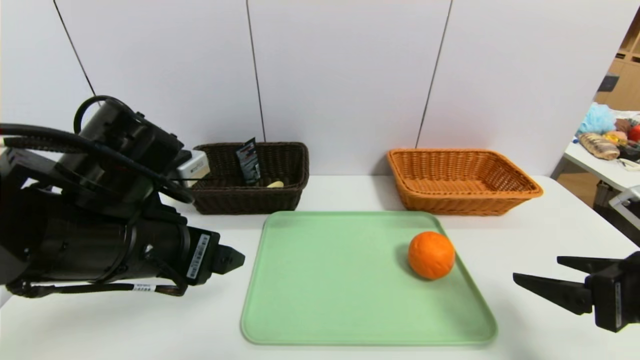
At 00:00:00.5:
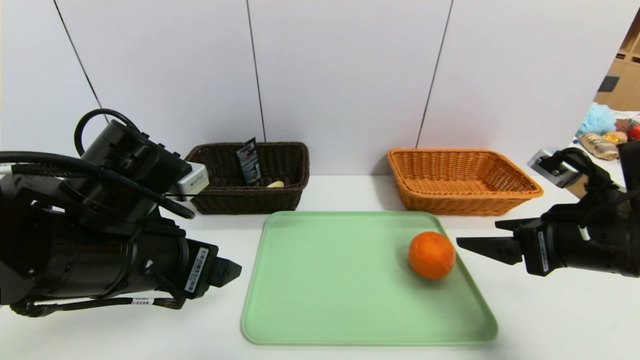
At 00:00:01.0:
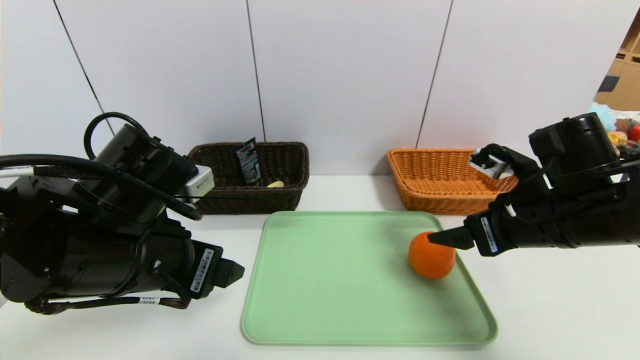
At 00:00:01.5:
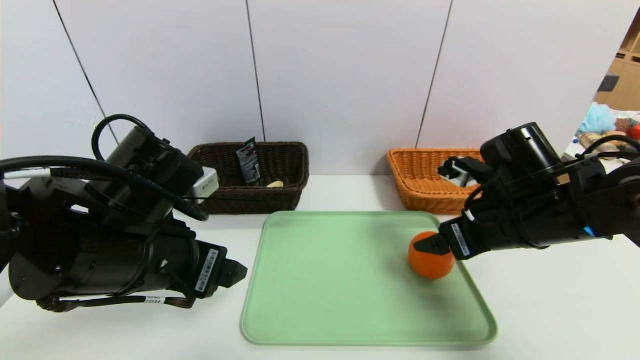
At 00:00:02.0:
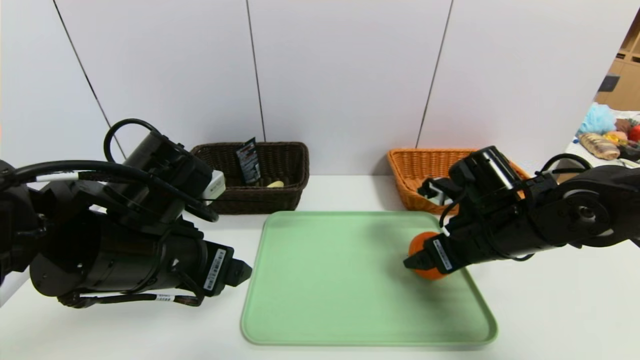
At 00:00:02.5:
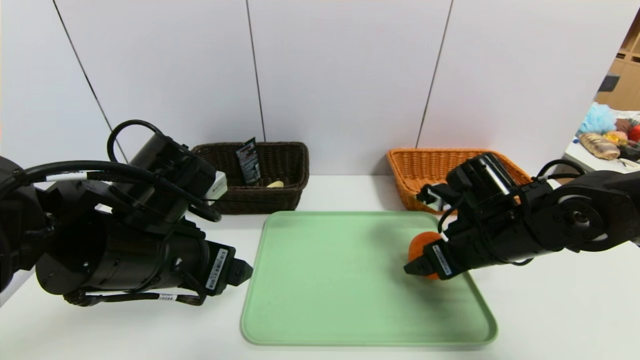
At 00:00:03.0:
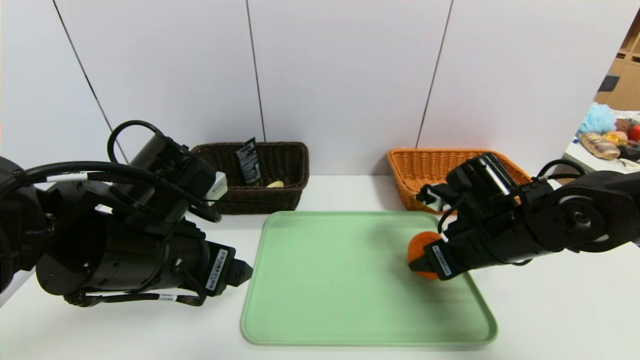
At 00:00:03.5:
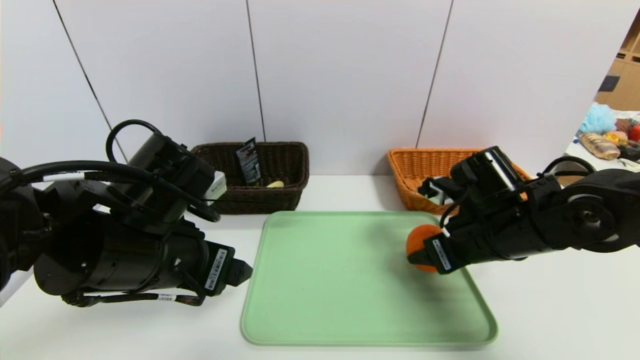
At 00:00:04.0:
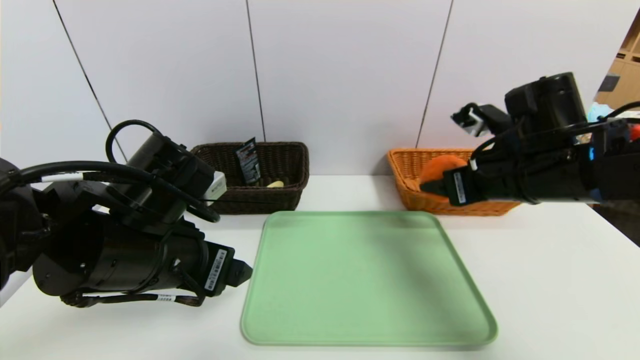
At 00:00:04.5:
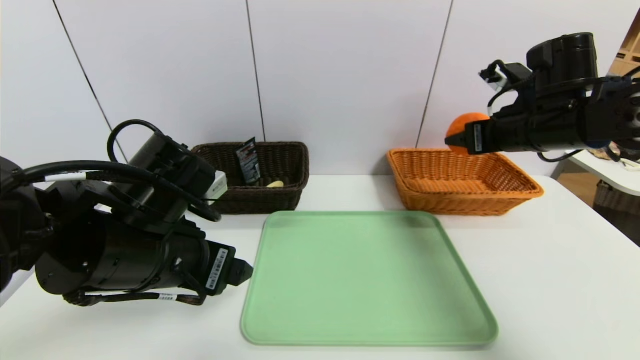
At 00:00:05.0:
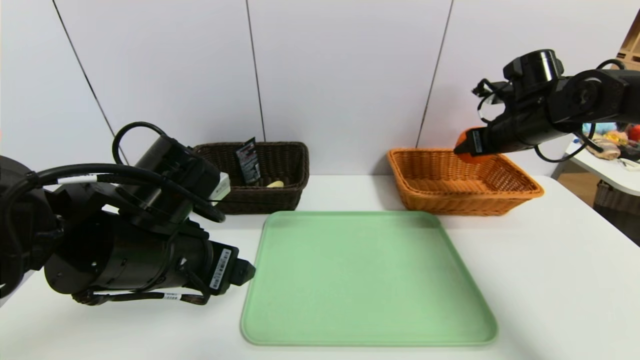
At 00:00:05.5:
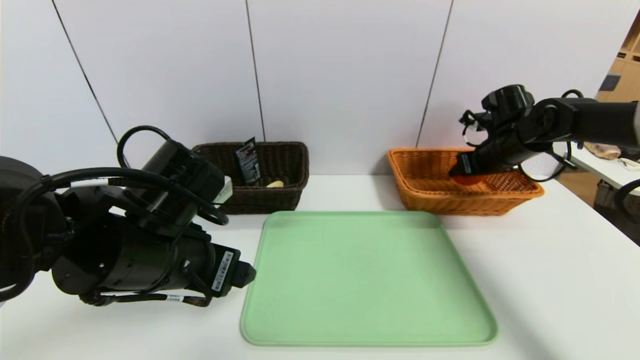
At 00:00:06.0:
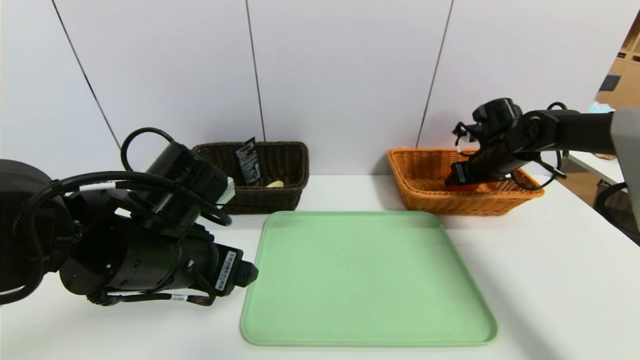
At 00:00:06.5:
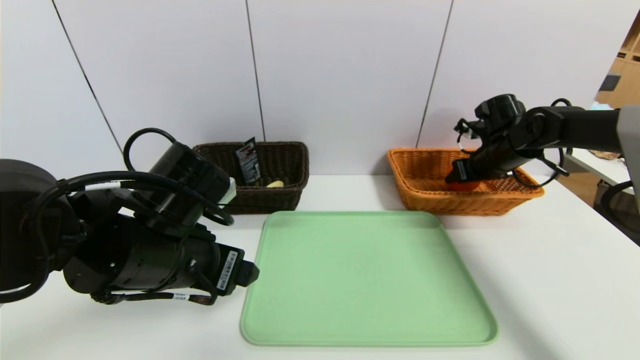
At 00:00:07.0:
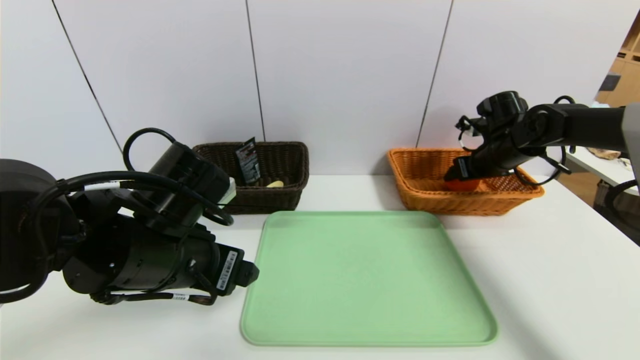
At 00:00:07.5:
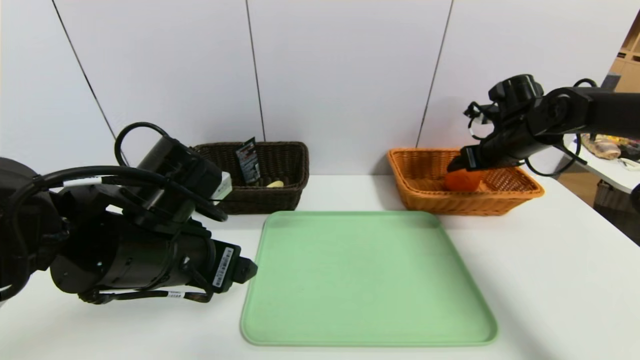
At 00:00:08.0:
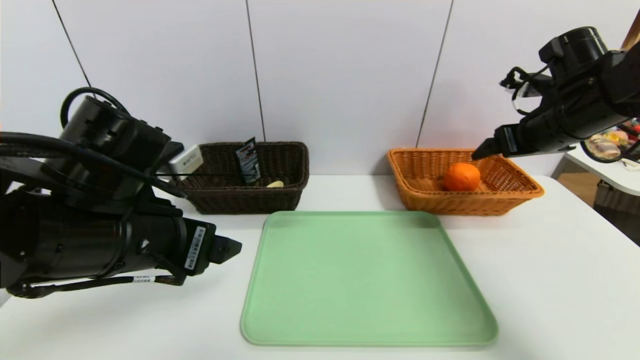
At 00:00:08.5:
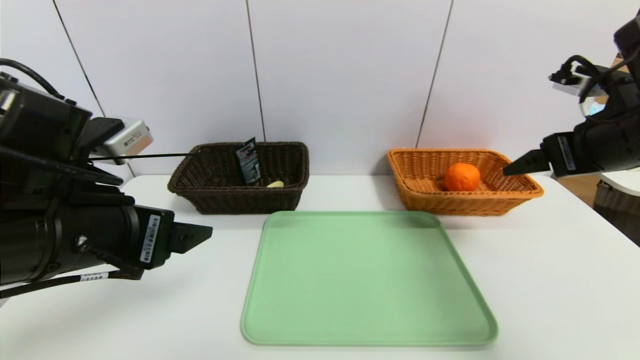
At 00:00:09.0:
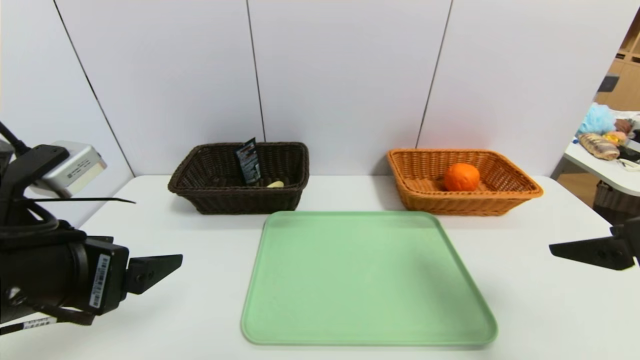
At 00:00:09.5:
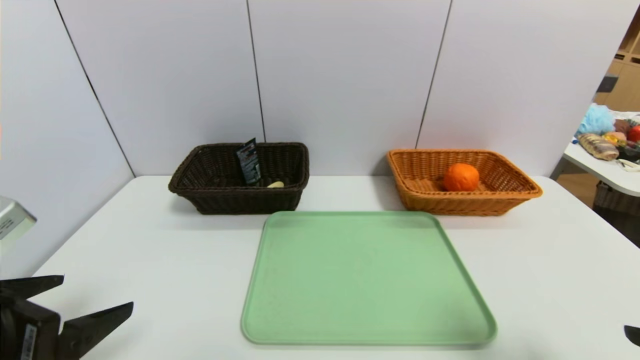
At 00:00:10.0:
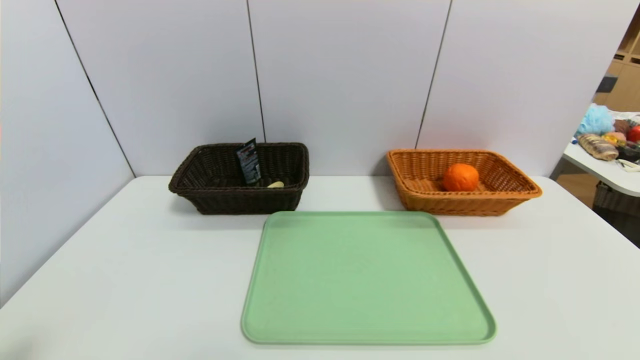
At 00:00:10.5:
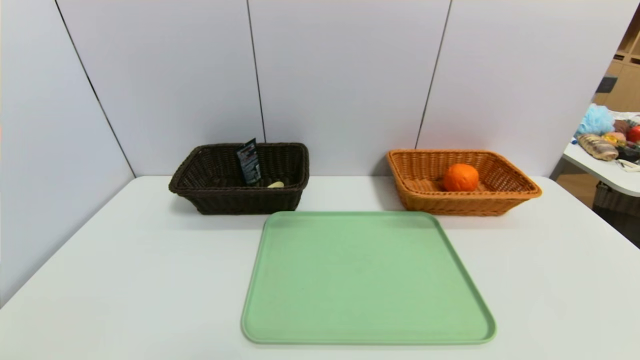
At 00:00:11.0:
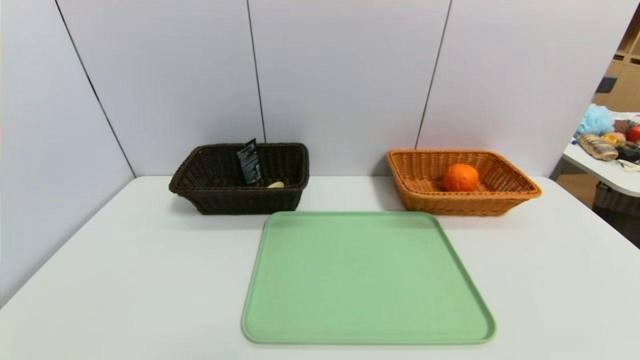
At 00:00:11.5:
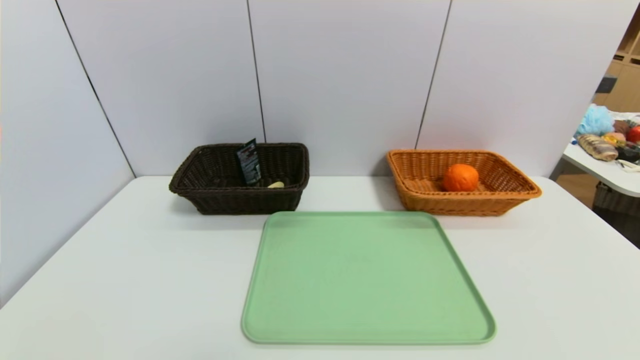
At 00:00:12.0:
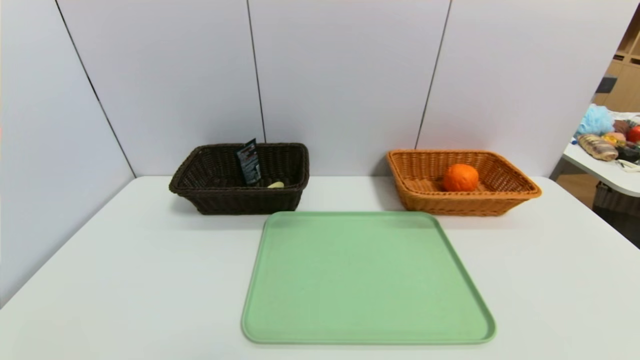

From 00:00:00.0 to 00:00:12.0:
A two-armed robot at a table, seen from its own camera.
Task of the whole recording: place the food in the right basket with the right gripper, and place the non food items in the left basket with the left gripper.
From 00:00:00.0 to 00:00:02.0: The right gripper shifts about 15 cm forward and to the left.
From 00:00:02.0 to 00:00:04.0: The right gripper travels upward by some 10 cm, and closes its fingers.
From 00:00:04.0 to 00:00:06.0: The right gripper heads forward, to the right and downward, covering roughly 20 cm.
From 00:00:06.0 to 00:00:08.0: The right gripper travels upward and backward by some 15 cm, and opens up.
From 00:00:08.0 to 00:00:10.0: The right gripper travels backward by approximately 35 cm. Meanwhile the left gripper shifts approximately 20 cm backward and to the left.

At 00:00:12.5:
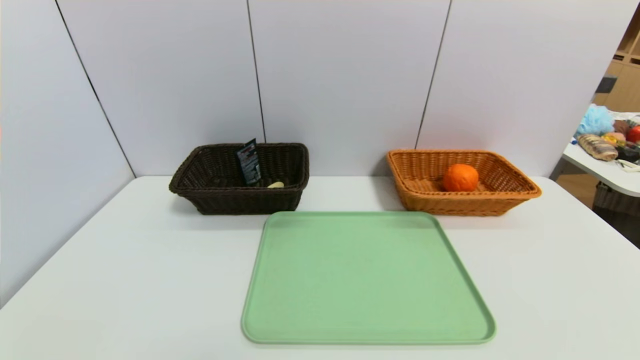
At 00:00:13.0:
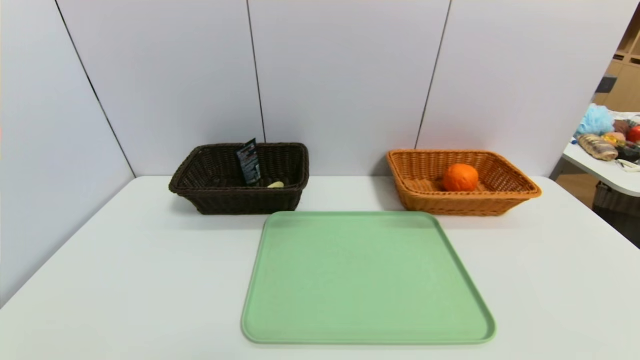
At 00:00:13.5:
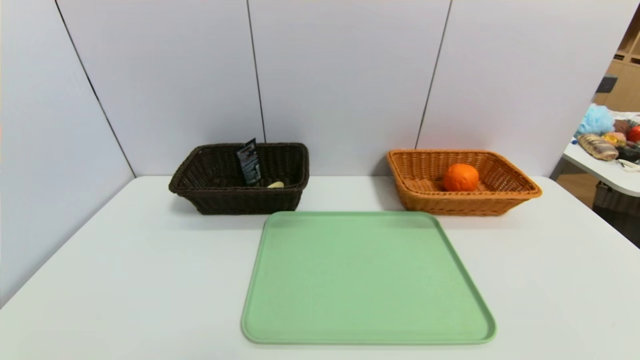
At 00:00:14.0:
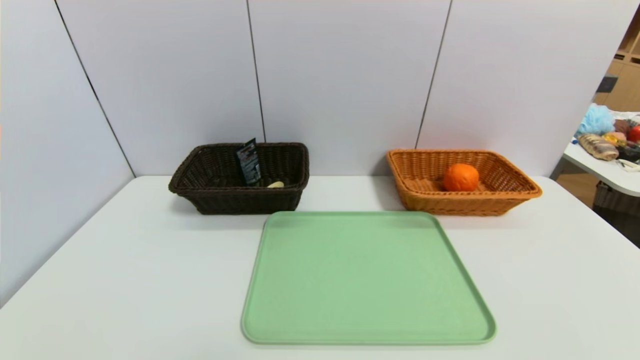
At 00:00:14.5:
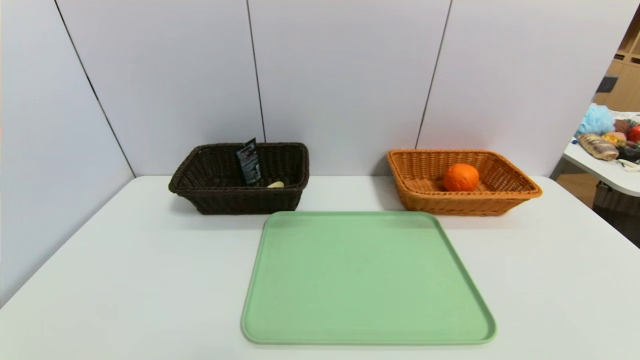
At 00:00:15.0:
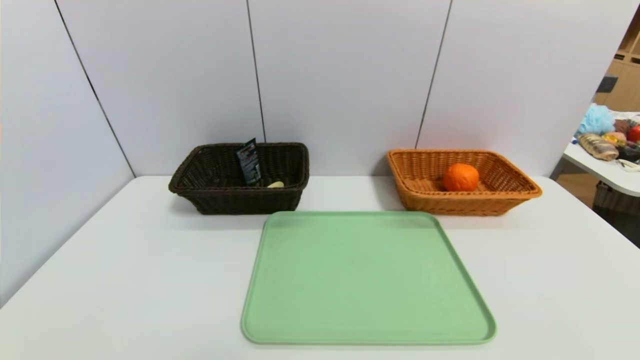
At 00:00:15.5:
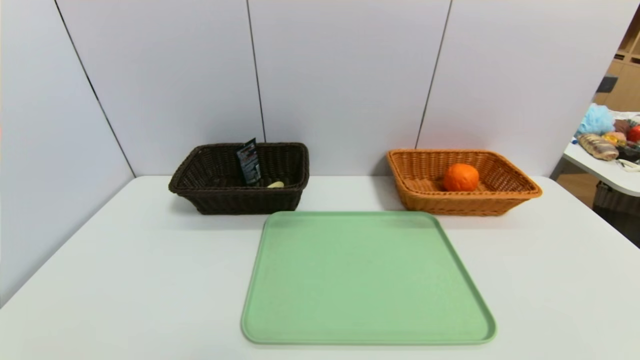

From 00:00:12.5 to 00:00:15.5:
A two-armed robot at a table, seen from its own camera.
Task of the whole recording: place the food in the right basket with the right gripper, and place the non food items in the left basket with the left gripper.
From 00:00:14.0 to 00:00:15.5: Both grippers stay put.
